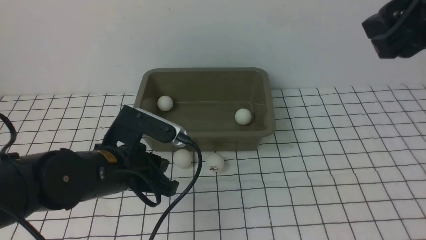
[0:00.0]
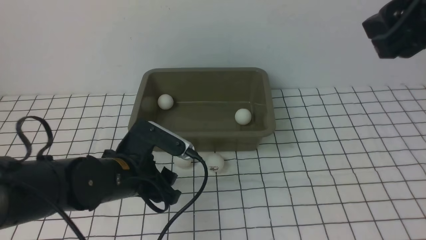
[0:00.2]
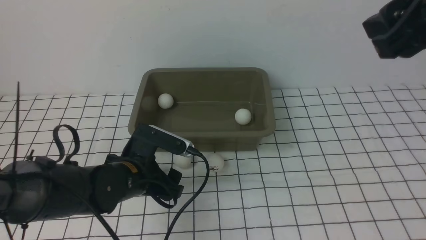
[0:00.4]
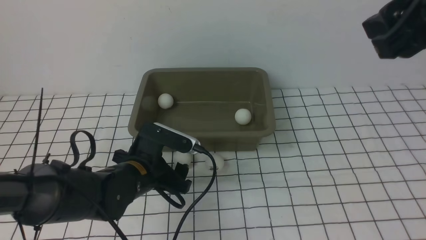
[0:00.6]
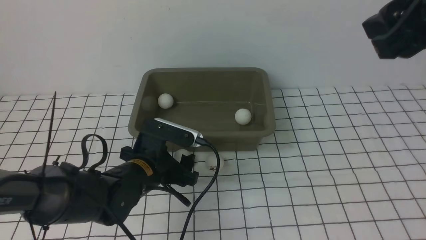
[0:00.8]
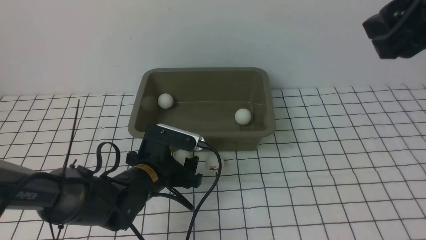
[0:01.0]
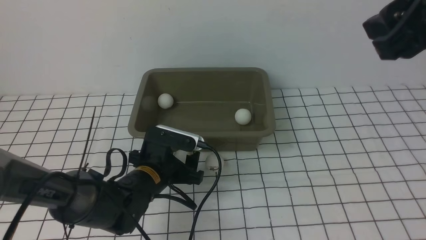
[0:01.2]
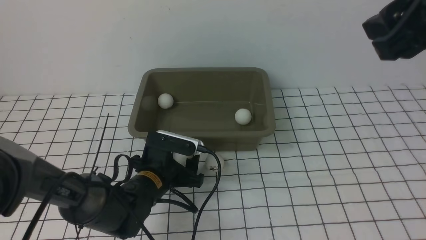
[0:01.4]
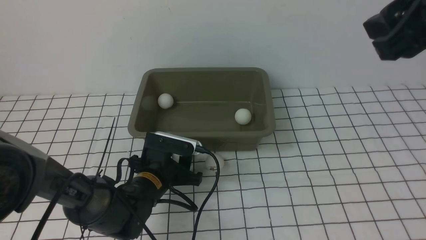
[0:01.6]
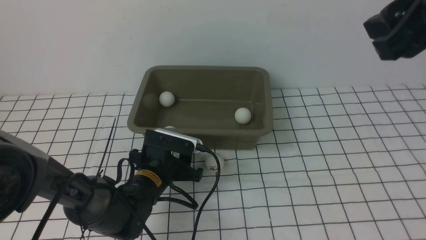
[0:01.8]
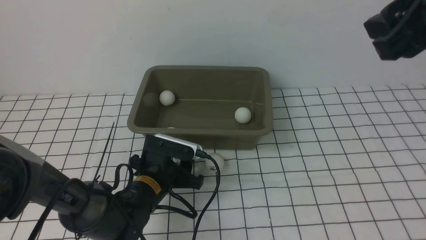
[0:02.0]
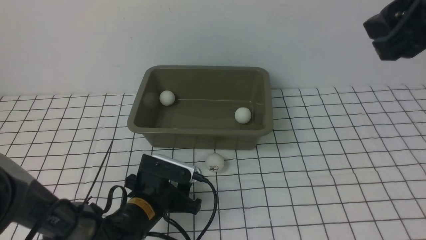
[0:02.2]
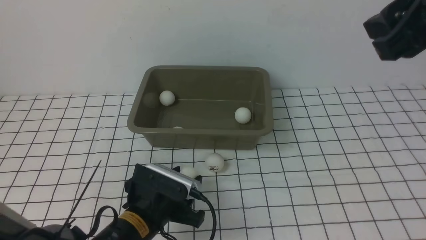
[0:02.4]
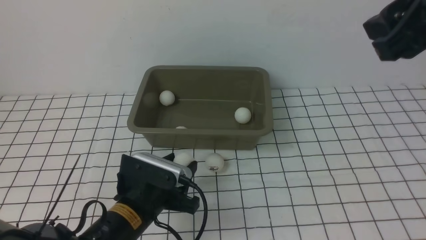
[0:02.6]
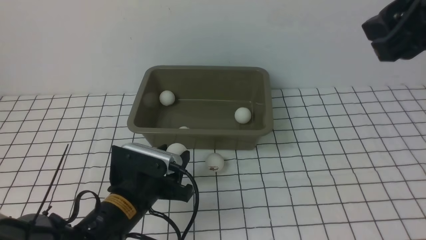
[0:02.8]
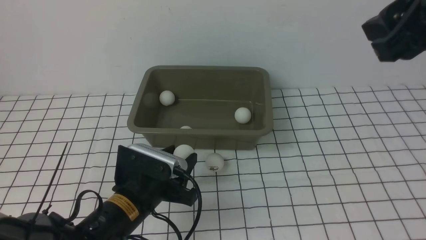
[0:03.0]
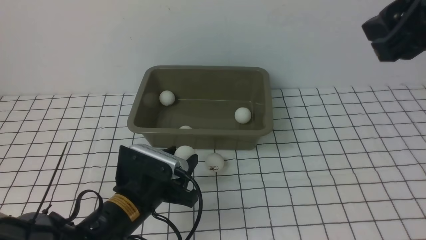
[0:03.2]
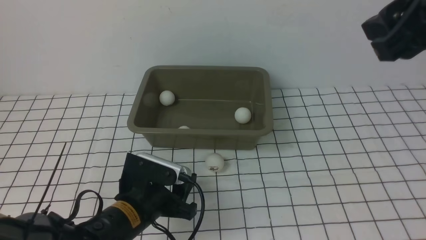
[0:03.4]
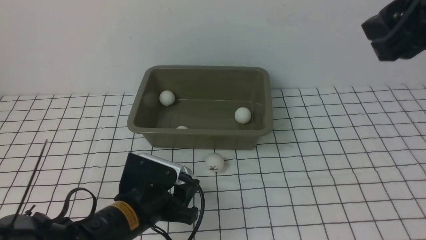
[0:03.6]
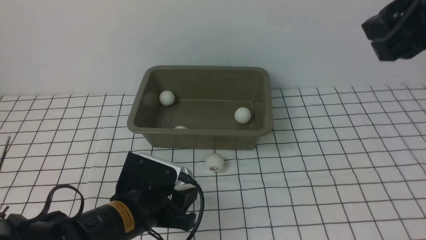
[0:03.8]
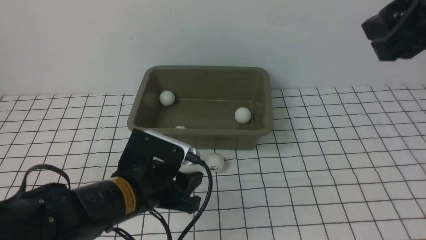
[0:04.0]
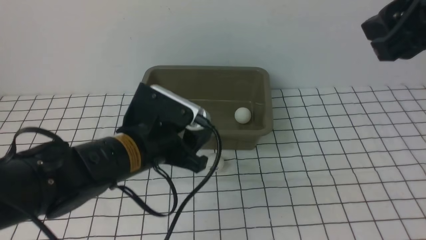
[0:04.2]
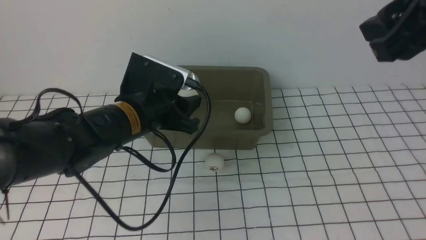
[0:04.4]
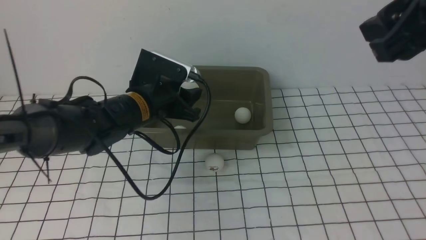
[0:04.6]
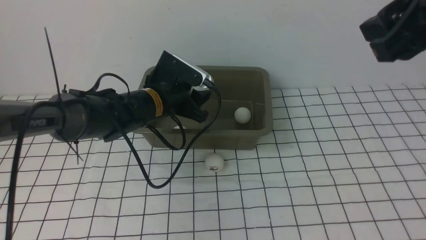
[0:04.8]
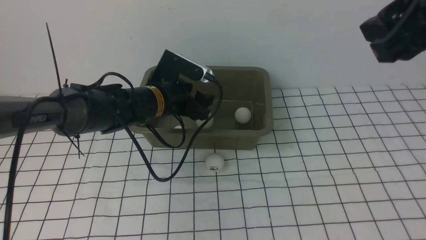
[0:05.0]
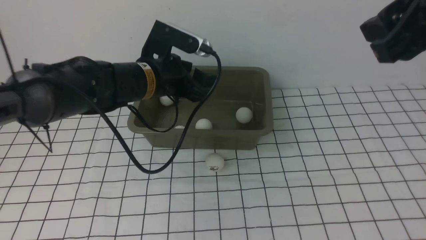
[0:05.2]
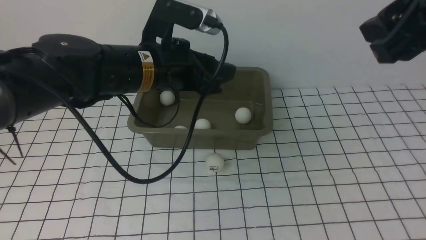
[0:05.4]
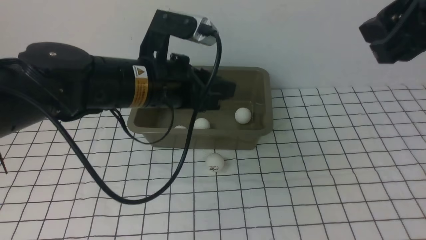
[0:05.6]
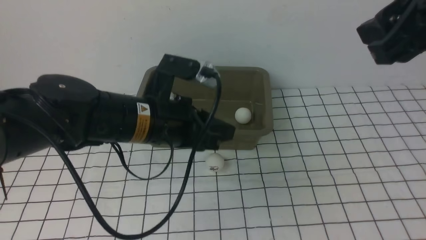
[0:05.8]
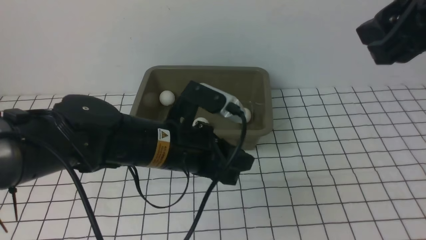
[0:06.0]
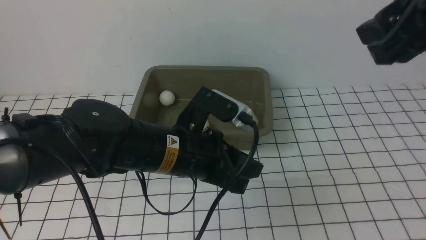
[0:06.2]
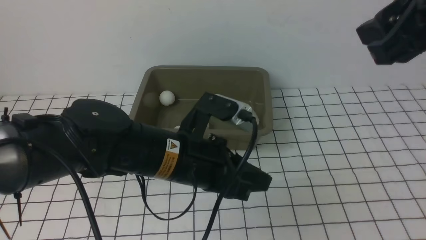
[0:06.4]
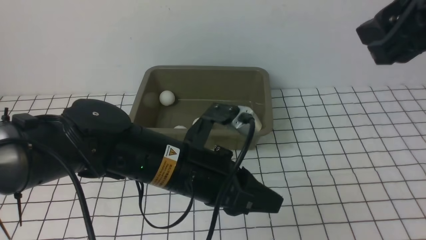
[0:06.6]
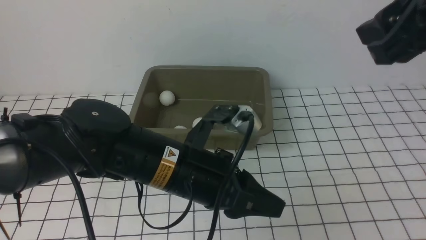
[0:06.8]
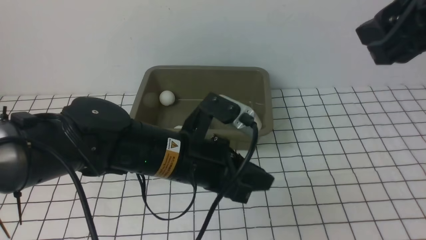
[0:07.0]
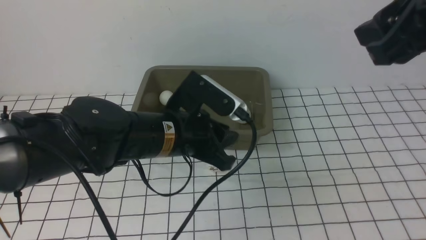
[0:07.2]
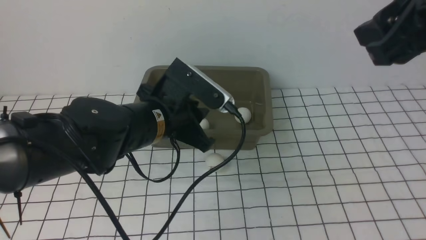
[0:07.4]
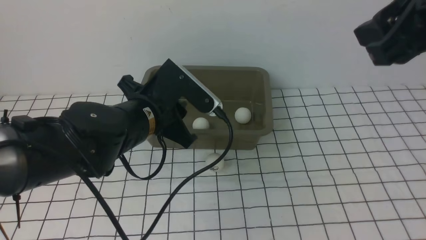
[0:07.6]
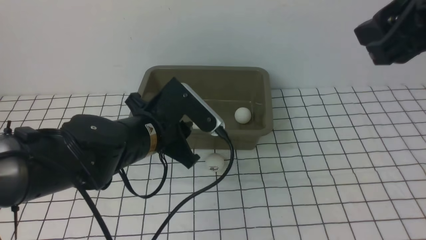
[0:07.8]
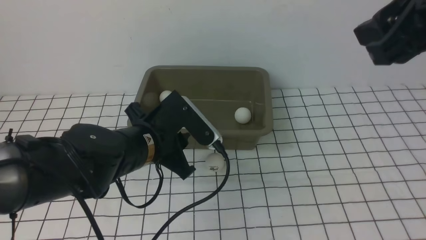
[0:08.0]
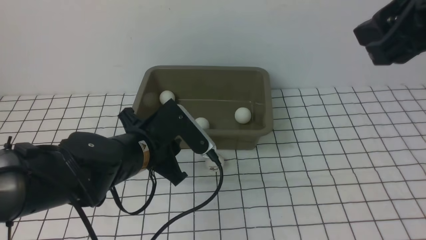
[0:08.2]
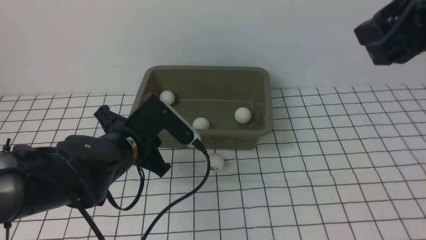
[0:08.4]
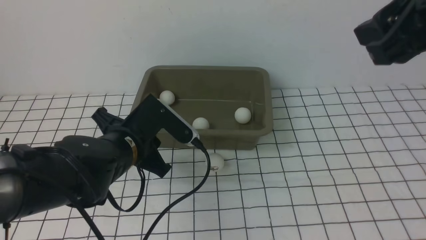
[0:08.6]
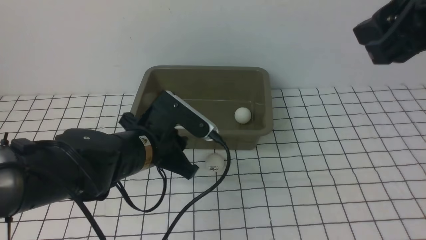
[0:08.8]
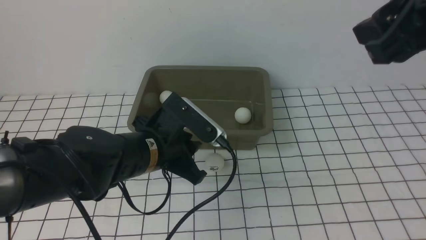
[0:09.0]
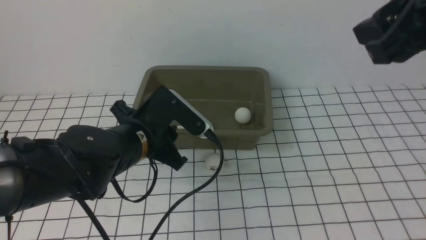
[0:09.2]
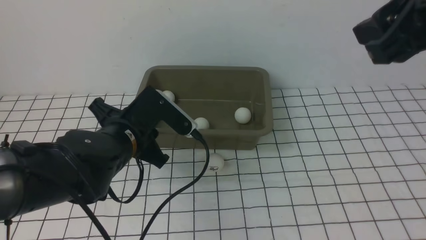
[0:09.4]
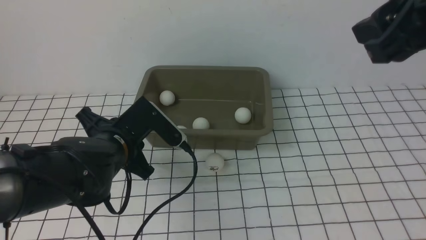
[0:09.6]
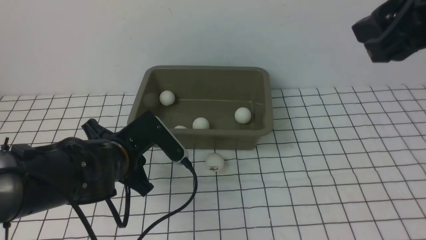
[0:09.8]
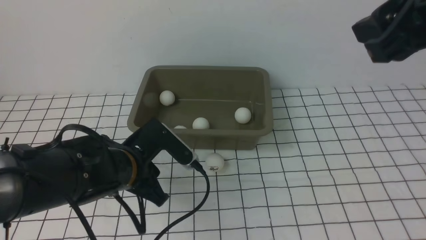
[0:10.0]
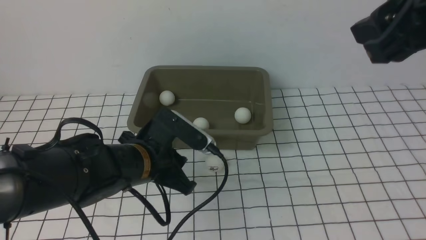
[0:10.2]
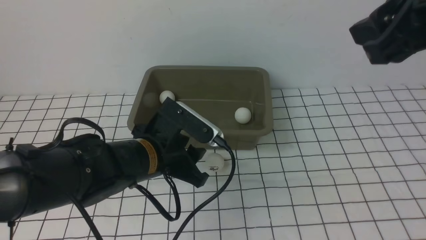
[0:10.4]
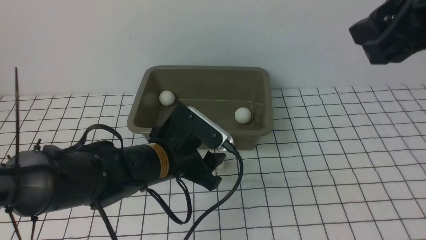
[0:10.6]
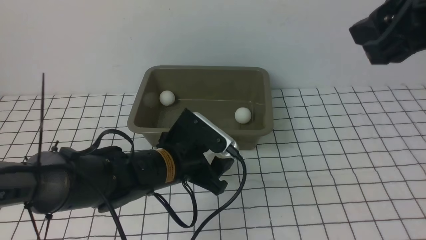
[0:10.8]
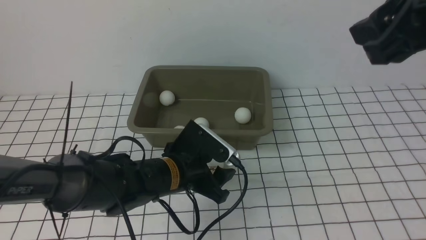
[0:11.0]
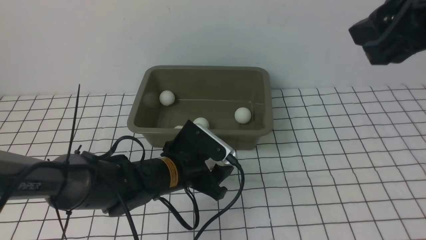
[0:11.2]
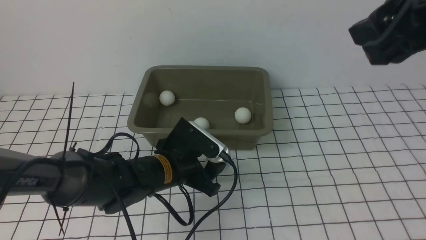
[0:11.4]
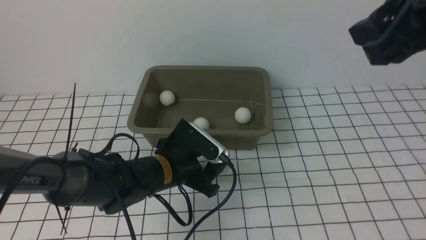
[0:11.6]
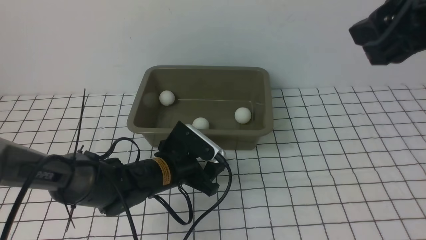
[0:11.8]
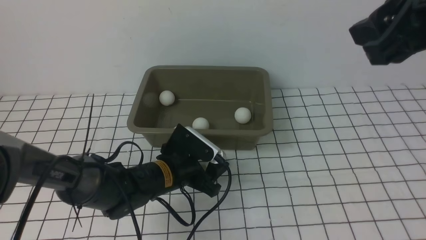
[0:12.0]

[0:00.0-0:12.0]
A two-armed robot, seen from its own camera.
Step, 0:00.0 to 0:02.0: use the left arm to clamp the table tennis ball closest to it.
Step, 0:02.2 to 0:05.0: use the left arm to put the table tennis ball into the box.
0:00.0 to 0:01.6: The left gripper goes about 15 cm downward and forward, and opens up.
0:01.6 to 0:03.0: The left gripper shifts approximately 5 cm backward.
0:03.0 to 0:04.4: The left gripper moves upward and forward, some 10 cm.
0:04.4 to 0:06.0: The left gripper heads backward and to the right, covering approximately 10 cm, and closes its fingers.
0:06.0 to 0:07.6: The left gripper changes place by roughly 5 cm.
0:07.6 to 0:09.0: The grippers stay close to where they were, moving slightly.
0:09.0 to 0:10.4: The left gripper opens up.
0:10.4 to 0:12.0: The left gripper goes some 10 cm downward.

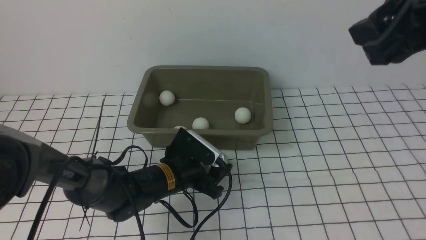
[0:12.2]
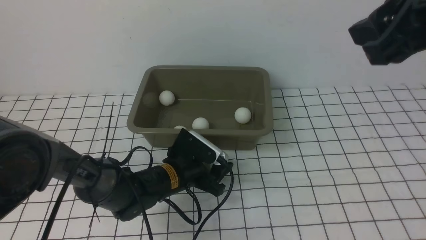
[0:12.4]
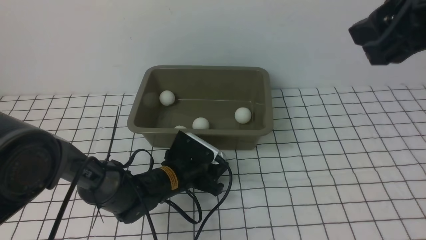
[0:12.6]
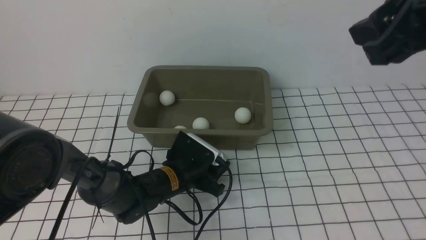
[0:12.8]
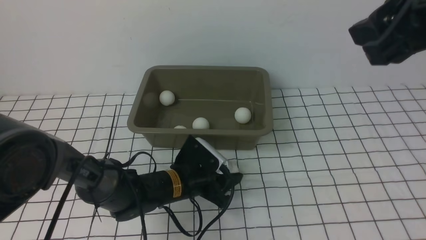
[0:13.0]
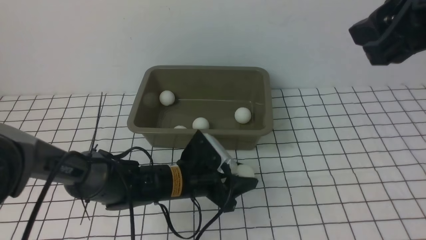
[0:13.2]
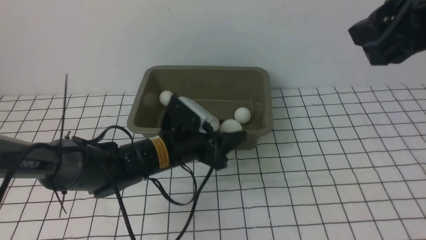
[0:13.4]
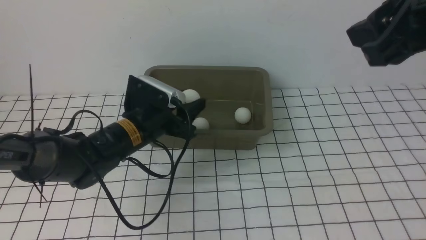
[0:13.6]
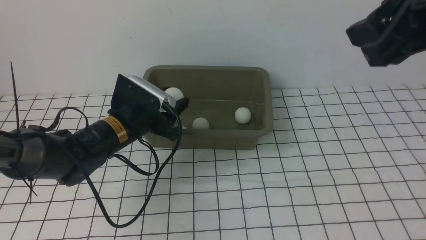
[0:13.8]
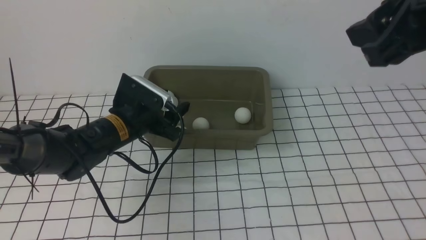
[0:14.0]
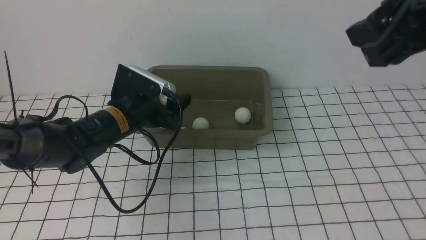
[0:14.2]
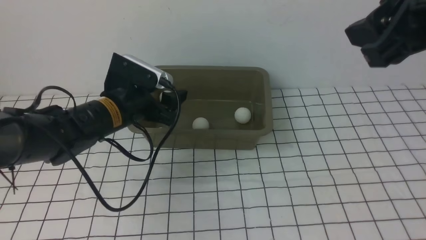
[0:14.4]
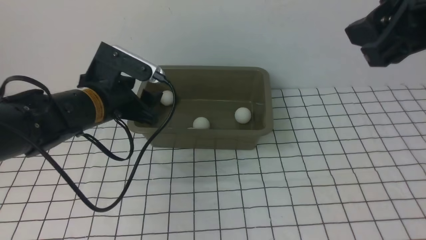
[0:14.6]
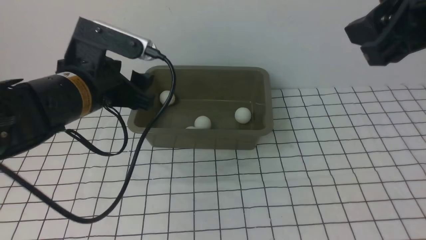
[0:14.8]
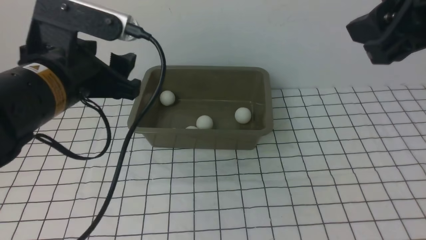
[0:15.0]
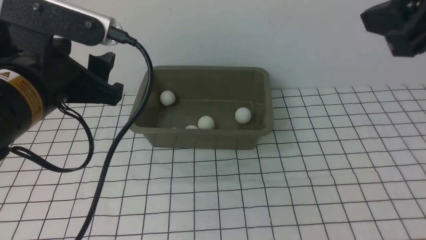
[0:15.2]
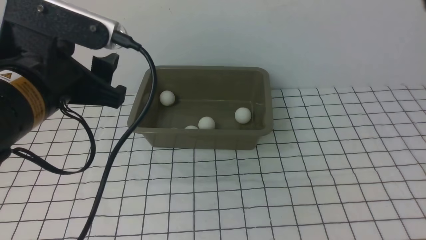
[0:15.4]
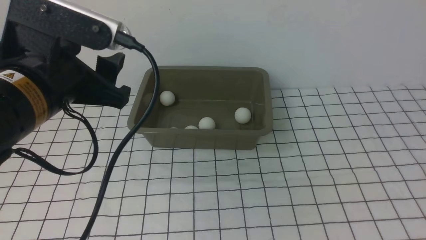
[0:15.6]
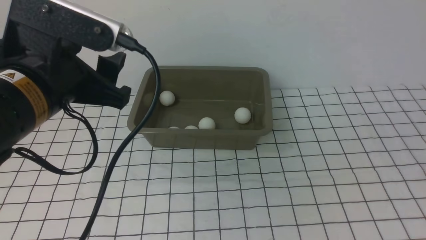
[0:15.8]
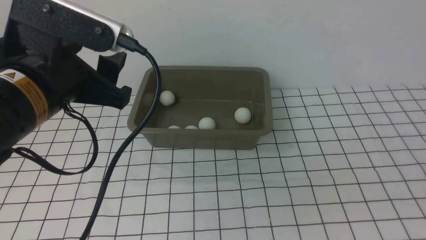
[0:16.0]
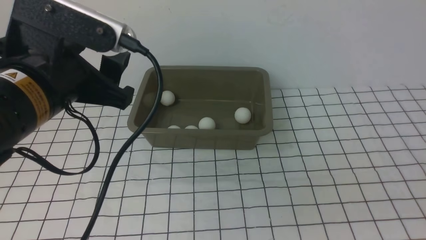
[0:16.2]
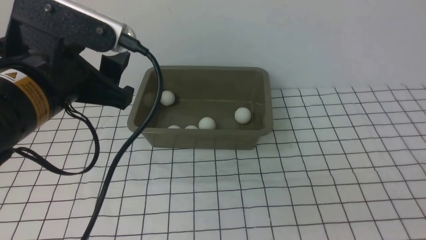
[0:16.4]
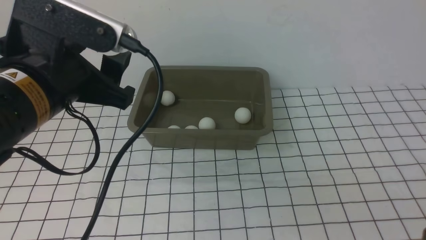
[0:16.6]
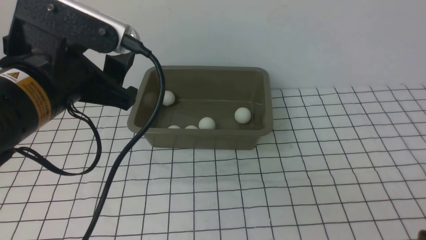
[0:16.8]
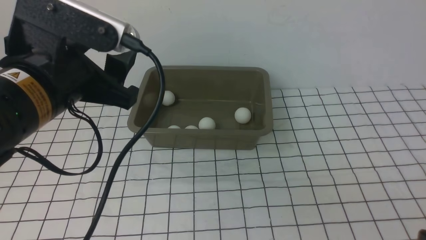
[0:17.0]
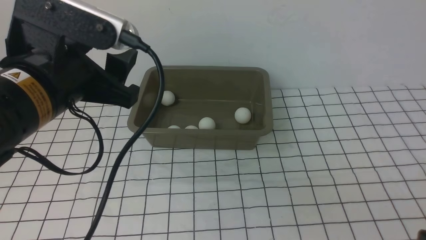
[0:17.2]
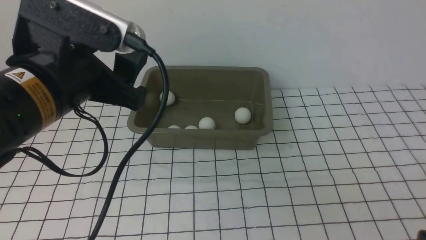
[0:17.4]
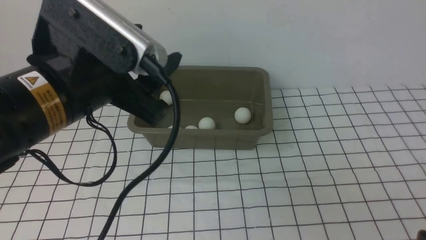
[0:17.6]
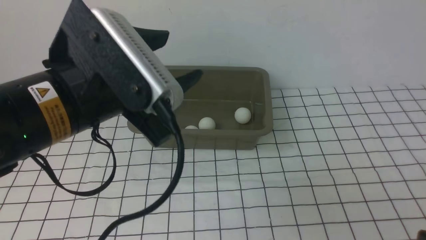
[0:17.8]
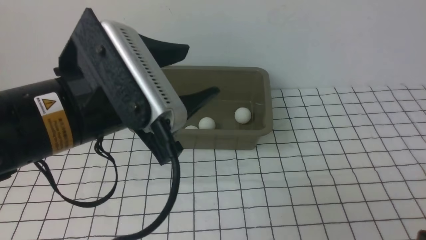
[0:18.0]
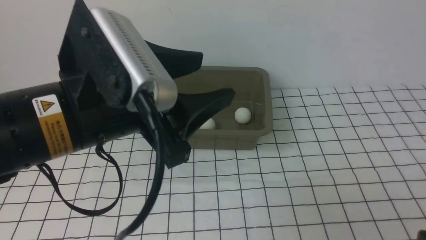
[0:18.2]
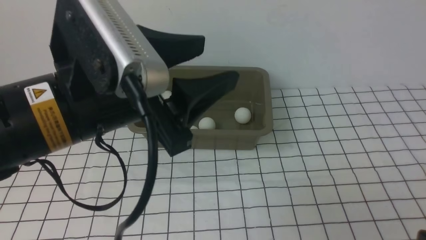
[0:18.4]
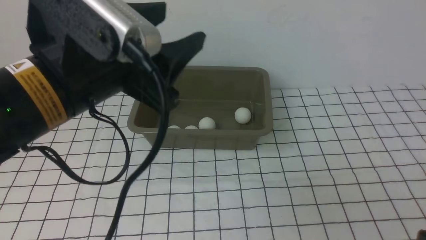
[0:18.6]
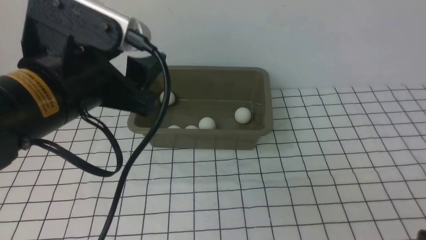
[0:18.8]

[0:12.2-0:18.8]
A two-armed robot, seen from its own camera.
Step, 0:13.4 to 0:14.2: use the left arm to put the table tennis ball into the box.
0:12.2 to 0:13.8: The left gripper heads upward and to the left, covering about 10 cm.
0:13.8 to 0:15.4: The right gripper moves backward and to the right, approximately 15 cm, while the left gripper heads upward and backward, covering about 20 cm.
